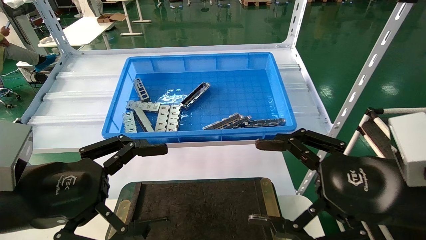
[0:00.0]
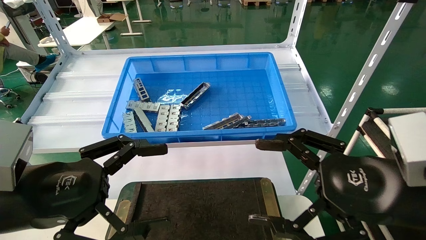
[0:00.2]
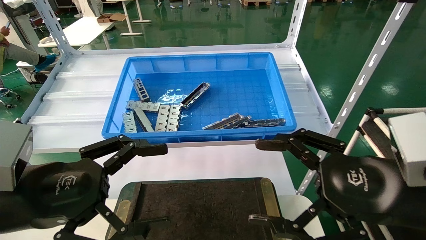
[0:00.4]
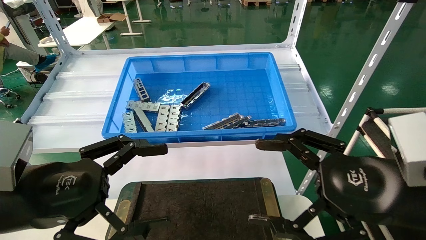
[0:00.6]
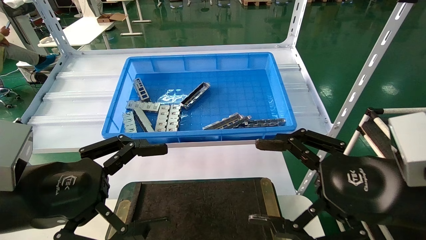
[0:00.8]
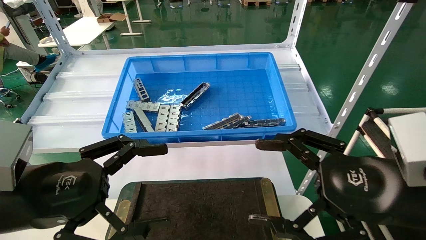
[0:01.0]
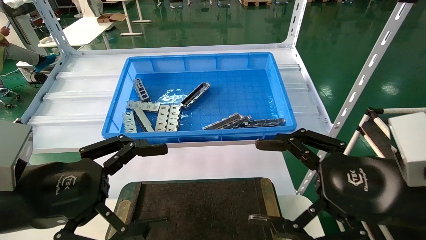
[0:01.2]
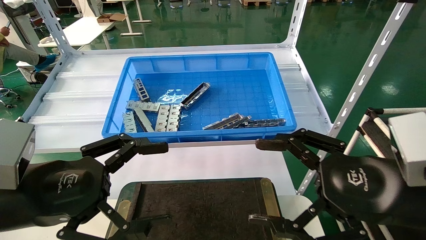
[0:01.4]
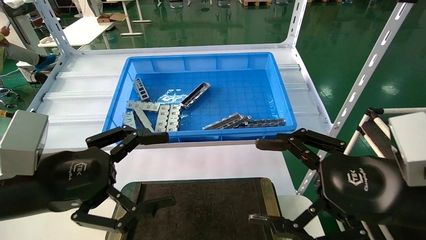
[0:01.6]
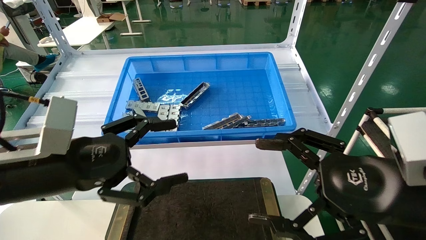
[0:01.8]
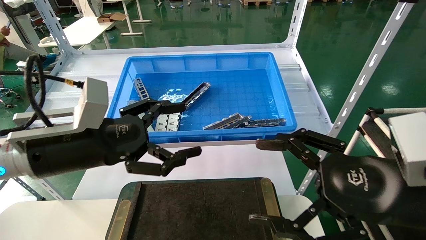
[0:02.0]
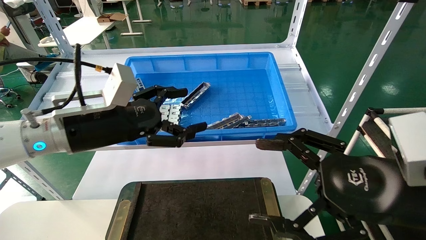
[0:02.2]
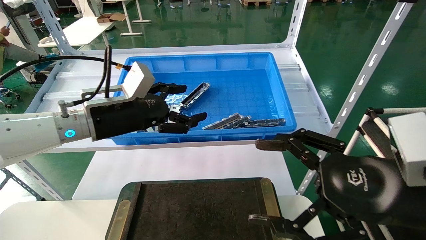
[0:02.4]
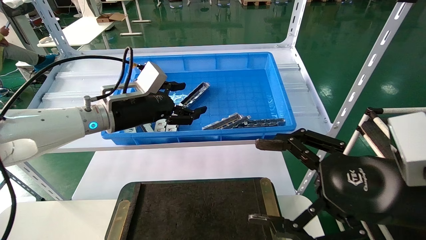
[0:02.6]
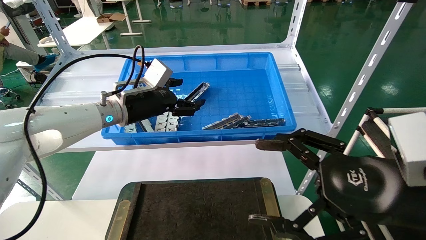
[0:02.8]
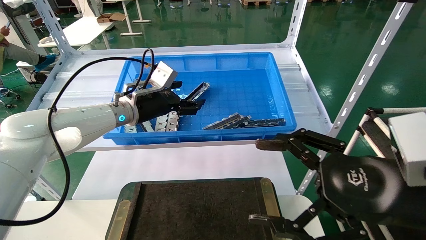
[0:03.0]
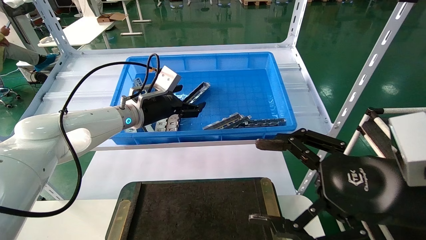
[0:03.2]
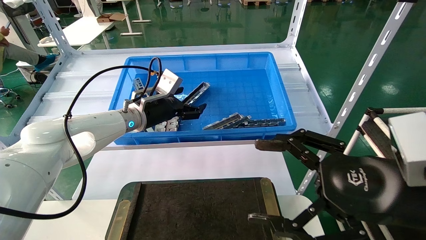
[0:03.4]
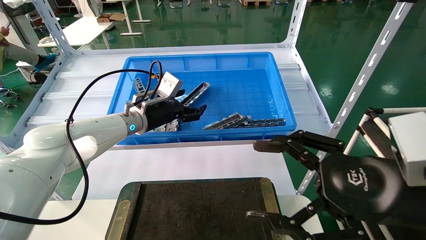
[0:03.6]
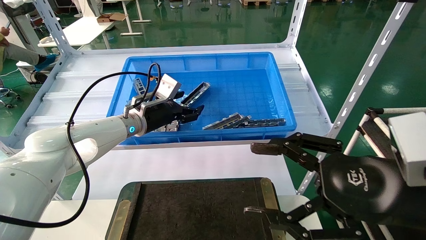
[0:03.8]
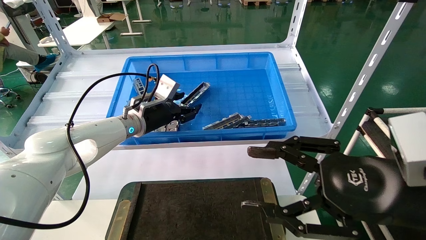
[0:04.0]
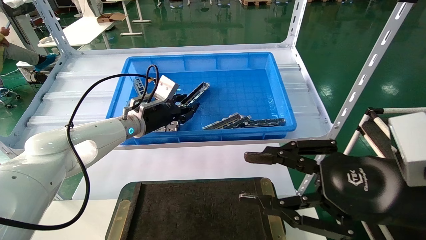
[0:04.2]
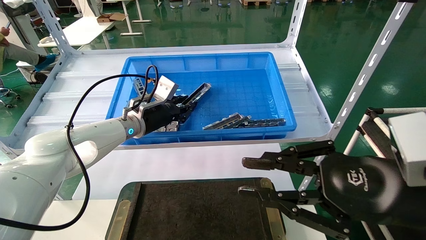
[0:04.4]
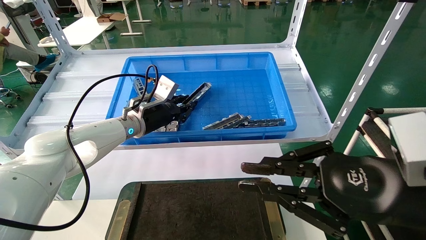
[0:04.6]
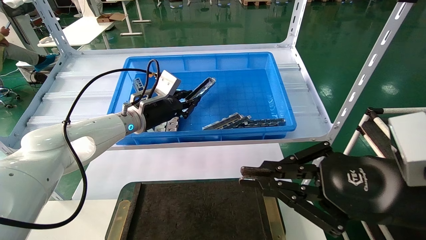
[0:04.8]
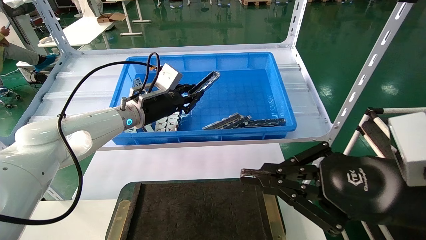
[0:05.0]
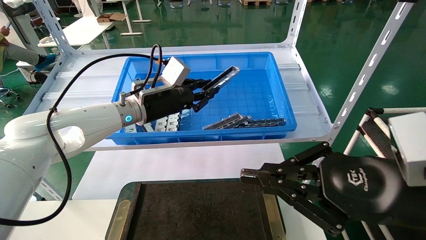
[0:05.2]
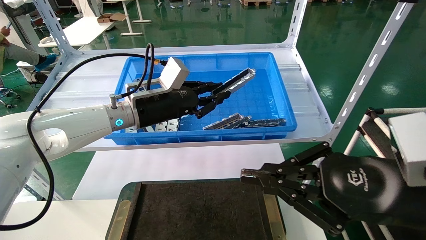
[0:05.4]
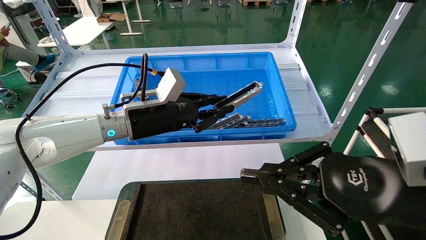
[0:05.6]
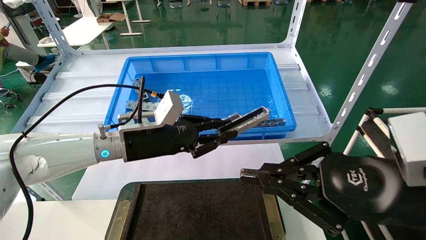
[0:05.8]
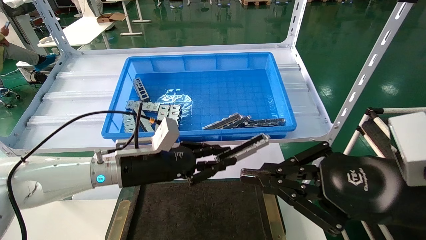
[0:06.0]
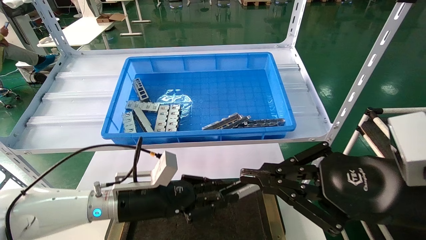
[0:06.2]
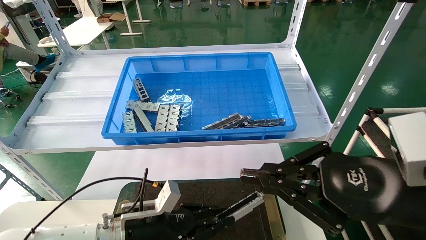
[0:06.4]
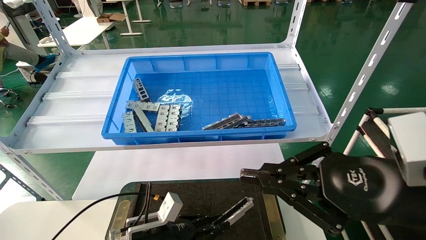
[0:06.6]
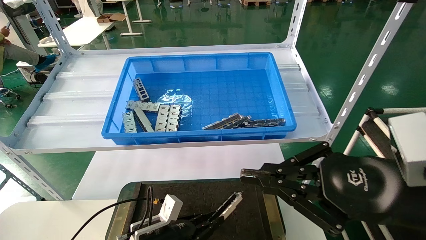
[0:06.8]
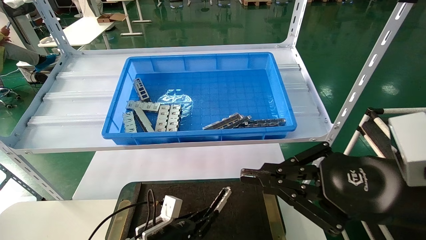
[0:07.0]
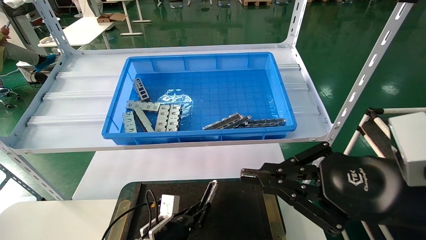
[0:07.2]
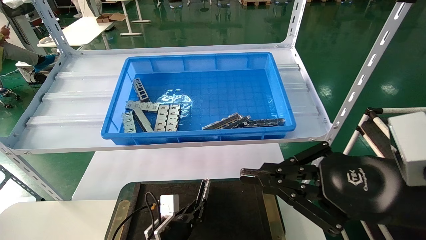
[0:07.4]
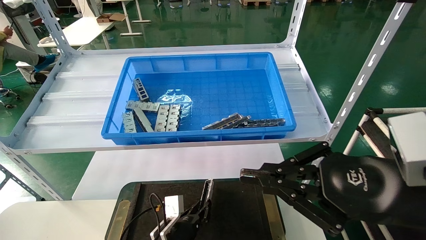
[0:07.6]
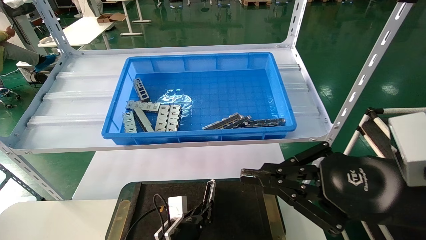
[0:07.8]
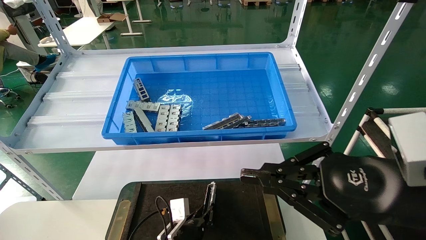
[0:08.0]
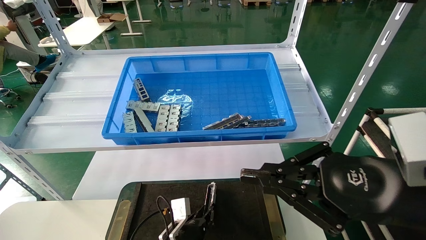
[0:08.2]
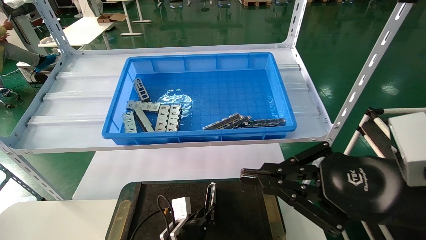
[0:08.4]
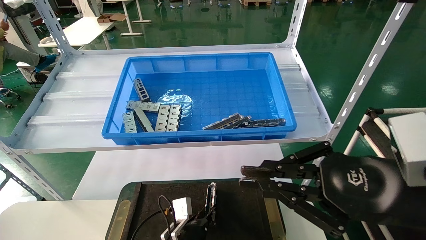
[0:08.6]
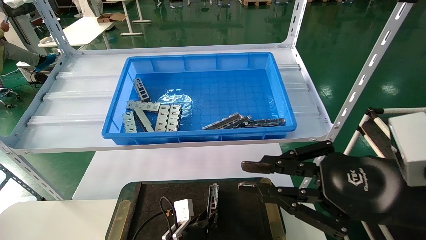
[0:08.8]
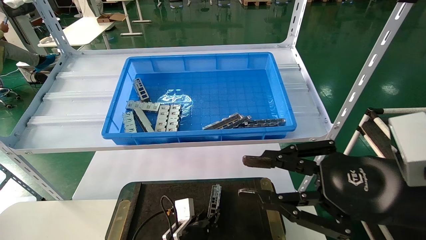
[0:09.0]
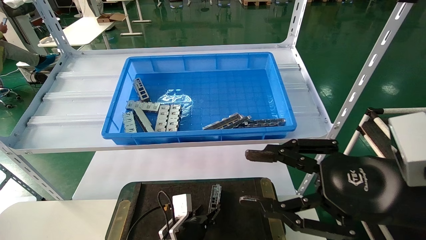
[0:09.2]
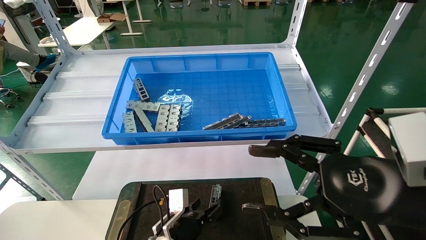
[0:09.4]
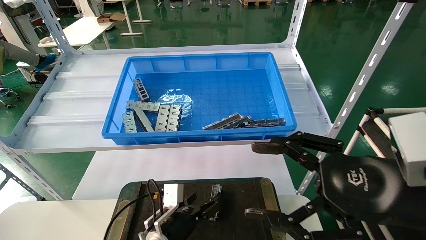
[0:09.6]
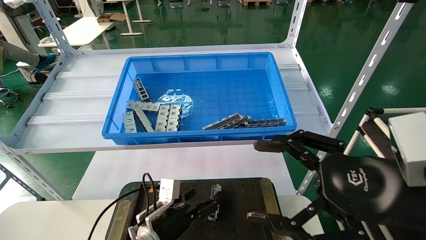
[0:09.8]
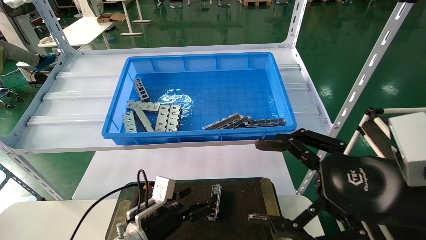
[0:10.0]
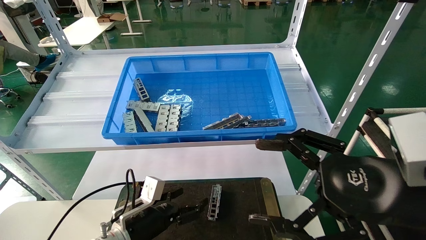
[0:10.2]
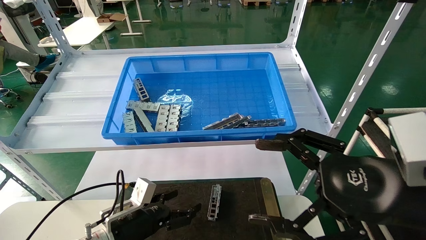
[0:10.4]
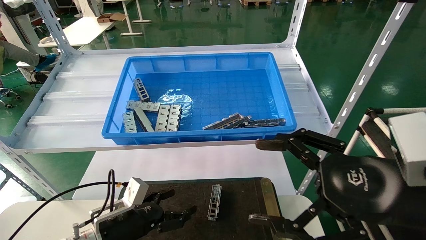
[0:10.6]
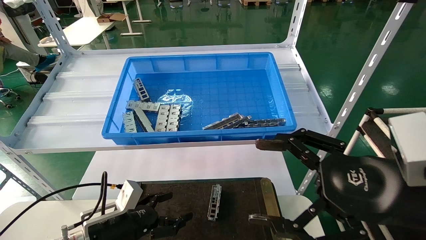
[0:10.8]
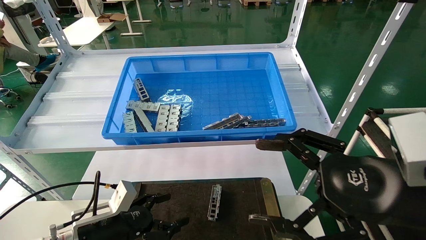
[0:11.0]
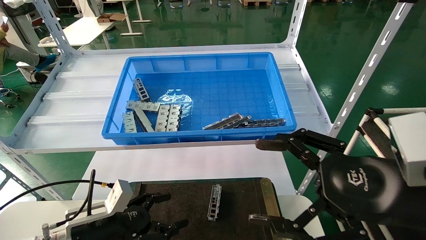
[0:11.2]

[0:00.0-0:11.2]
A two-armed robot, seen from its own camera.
Task of the whole recording: Grasp the part with one hand and place it on the black container.
Step, 0:02.0 to 0:05.2: Pick up the front USB bracket from the feeding area.
Step, 0:05.4 to 0:09.0: Place the front USB bracket into the box.
0:00.0 to 0:01.6: The grippers stay close to where they were, moving slightly.
0:01.6 to 0:03.2: The left gripper travels forward by about 25 cm.
0:03.2 to 0:04.8: The right gripper closes up, while the left gripper closes its fingers.
0:04.8 to 0:06.4: The left gripper is displaced downward and backward by approximately 25 cm.
0:06.4 to 0:08.0: The left gripper goes some 15 cm downward and to the right.
0:08.0 to 0:09.6: The left gripper travels upward by some 5 cm, and opens; the right gripper opens.
0:09.6 to 0:11.2: The left gripper goes approximately 15 cm to the left and upward.
